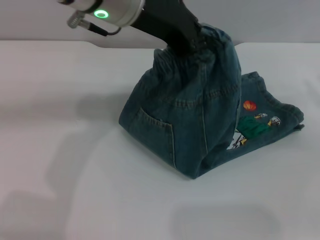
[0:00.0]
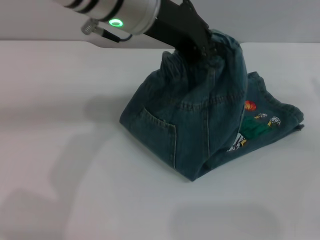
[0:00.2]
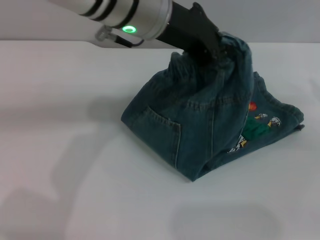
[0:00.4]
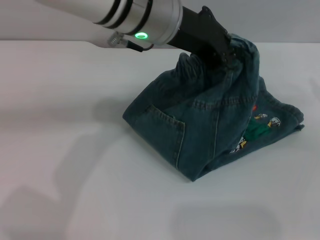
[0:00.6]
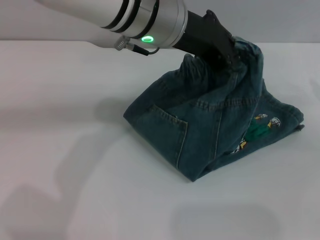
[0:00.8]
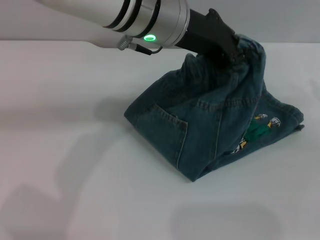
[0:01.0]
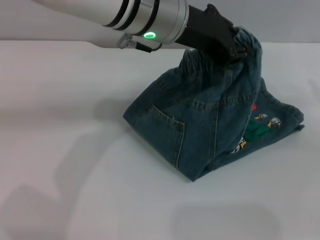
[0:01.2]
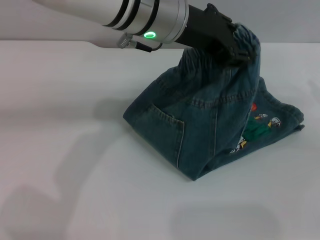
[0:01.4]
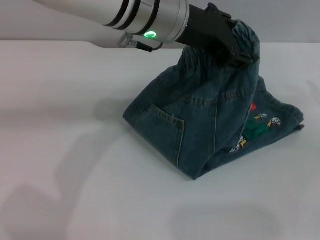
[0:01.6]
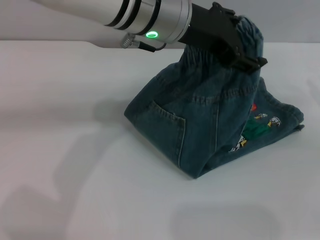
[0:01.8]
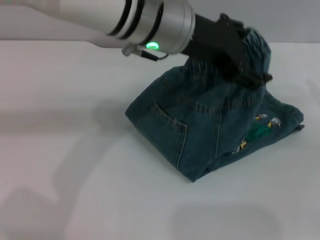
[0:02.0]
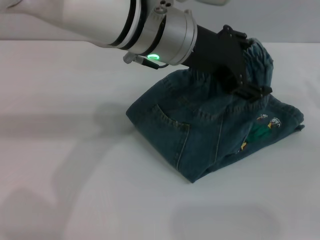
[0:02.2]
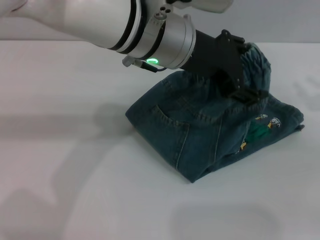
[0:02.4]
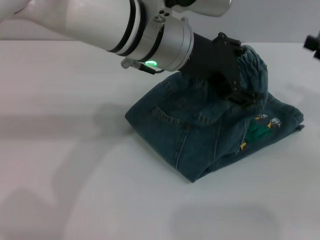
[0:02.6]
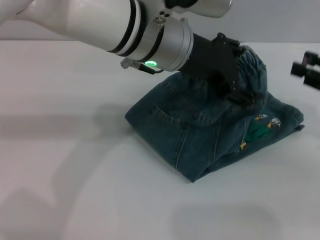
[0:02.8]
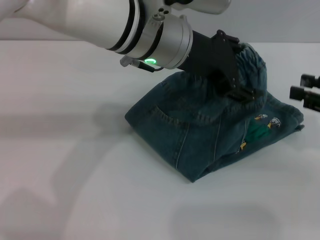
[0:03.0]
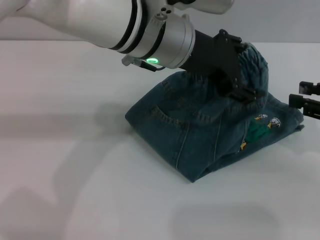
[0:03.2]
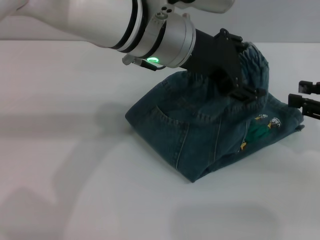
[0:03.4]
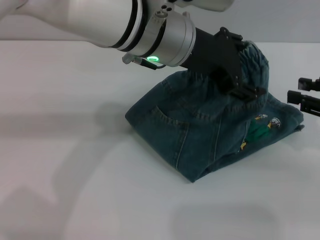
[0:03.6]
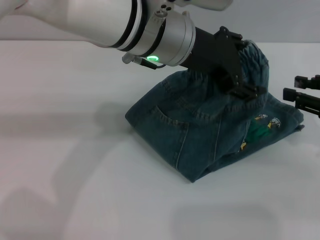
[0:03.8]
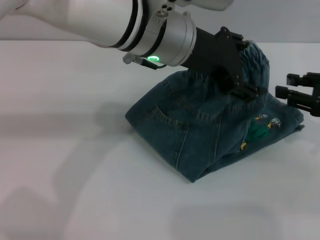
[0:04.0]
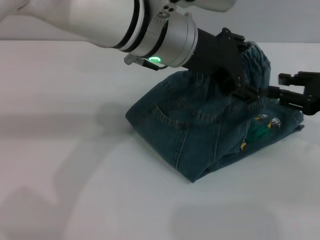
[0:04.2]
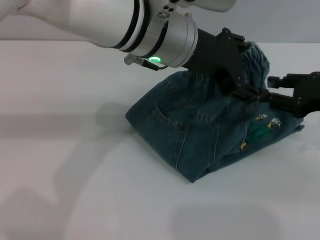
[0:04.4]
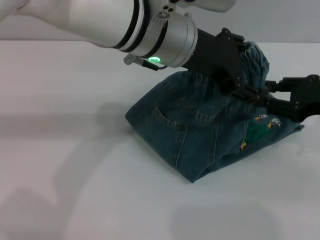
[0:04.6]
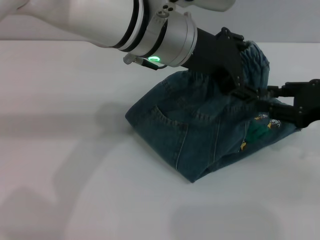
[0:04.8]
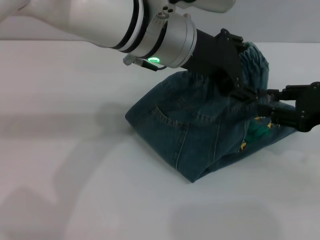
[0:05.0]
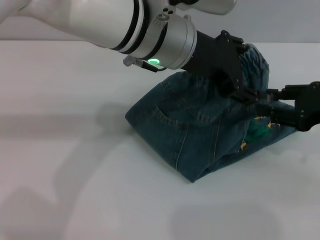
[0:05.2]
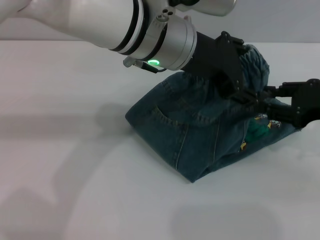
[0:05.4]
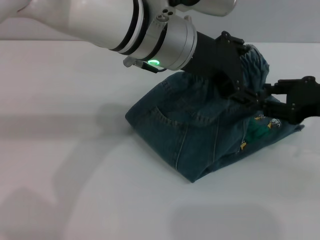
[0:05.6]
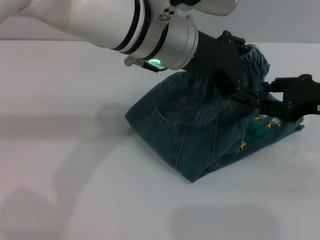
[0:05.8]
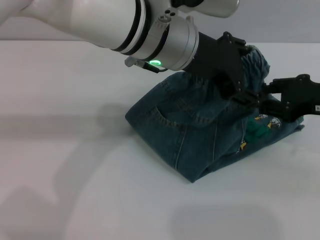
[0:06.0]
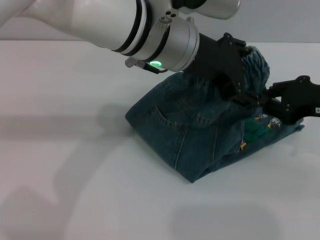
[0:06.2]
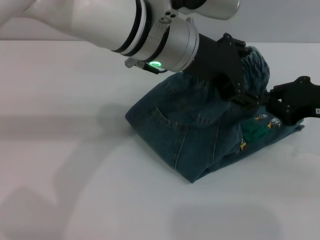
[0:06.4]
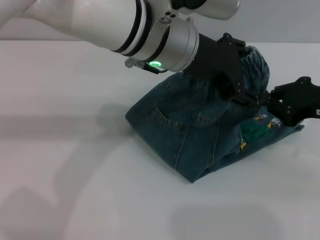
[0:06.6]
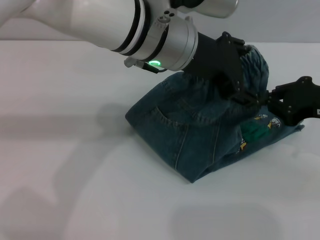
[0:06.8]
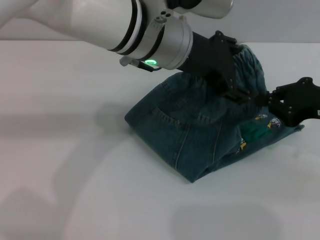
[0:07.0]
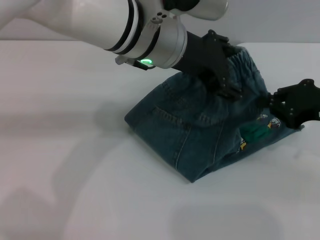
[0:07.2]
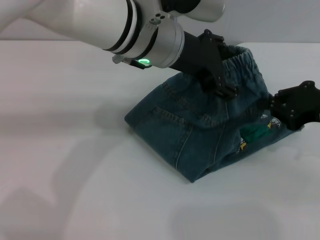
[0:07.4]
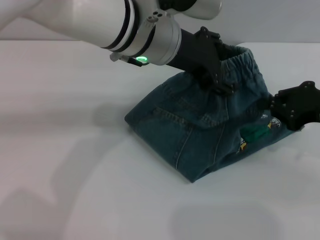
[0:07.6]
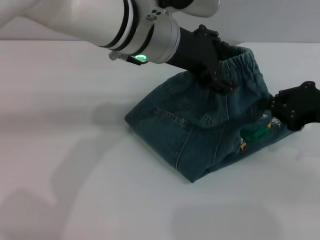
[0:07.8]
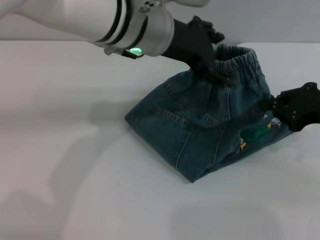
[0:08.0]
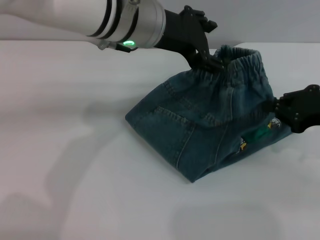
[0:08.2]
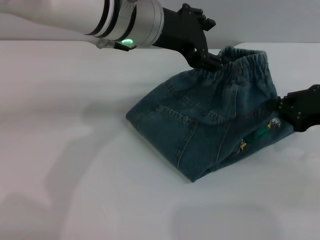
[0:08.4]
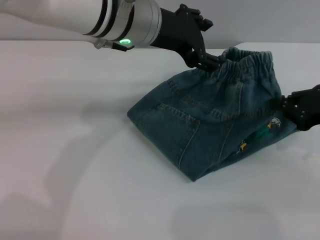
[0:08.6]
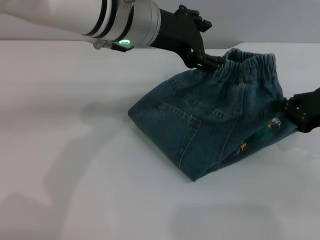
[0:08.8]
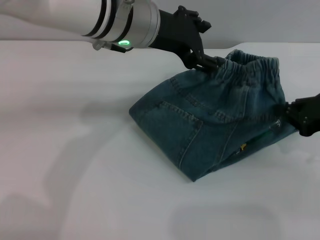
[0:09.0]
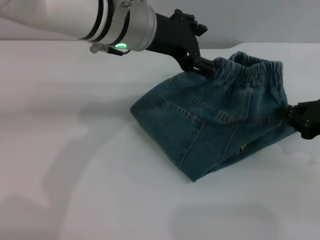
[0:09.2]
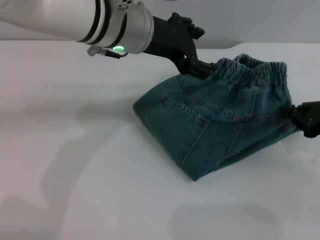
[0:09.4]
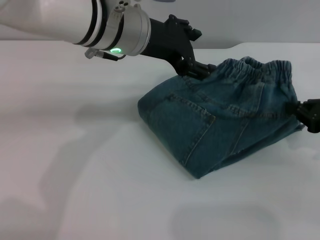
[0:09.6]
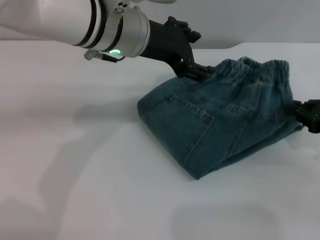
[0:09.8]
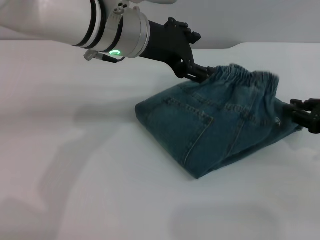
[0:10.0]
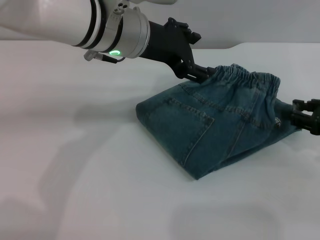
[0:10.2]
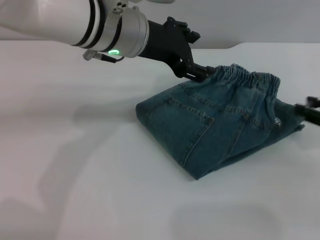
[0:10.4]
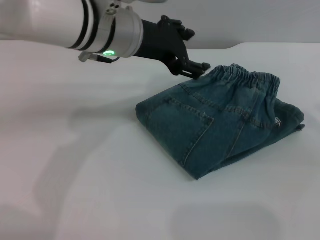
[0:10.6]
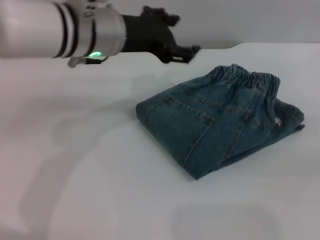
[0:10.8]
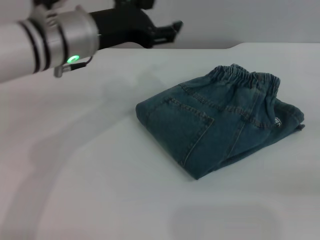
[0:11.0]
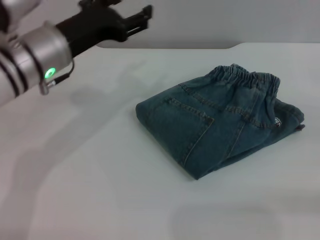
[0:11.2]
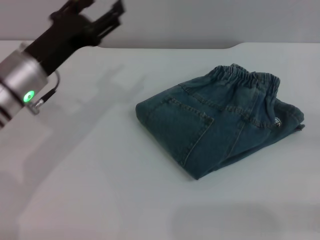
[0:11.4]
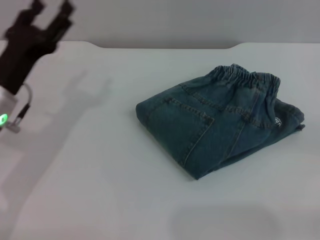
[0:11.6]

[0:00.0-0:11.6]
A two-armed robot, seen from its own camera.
Step, 0:00.0 to 0:09.4: Fold the pants from left to right with the left gripper.
0:00.0 to 0:01.4: The left gripper ends up some 5 cm from where it was.
0:01.4 to 0:02.8: The right gripper changes place by about 5 cm. The left gripper opens its fingers.
0:02.8 to 0:05.8: The grippers stay close to where they were, moving slightly.
0:05.8 to 0:07.2: The right gripper closes its fingers.
0:07.2 to 0:10.2: The grippers move only a little.
0:10.2 to 0:11.6: The left gripper travels to the left, downward and backward by about 20 cm. Meanwhile the right gripper shifts about 15 cm to the right and backward, and opens.
